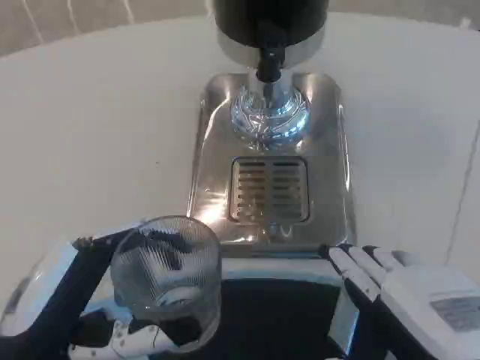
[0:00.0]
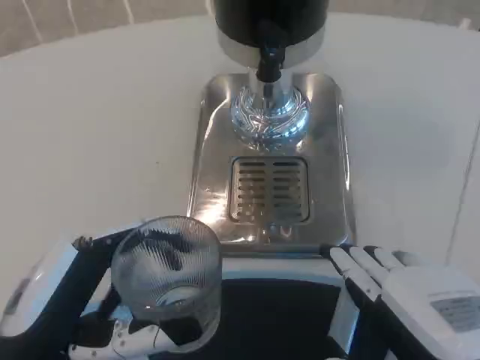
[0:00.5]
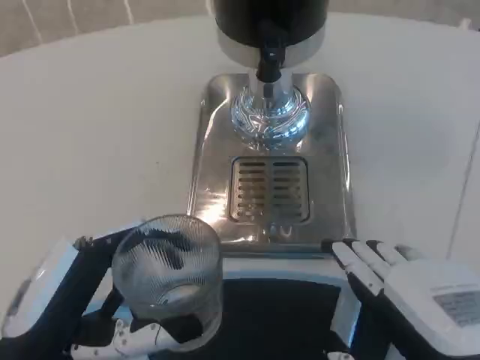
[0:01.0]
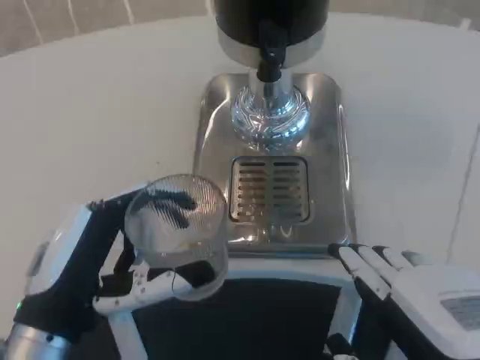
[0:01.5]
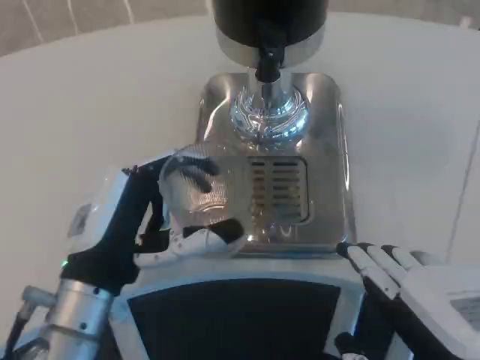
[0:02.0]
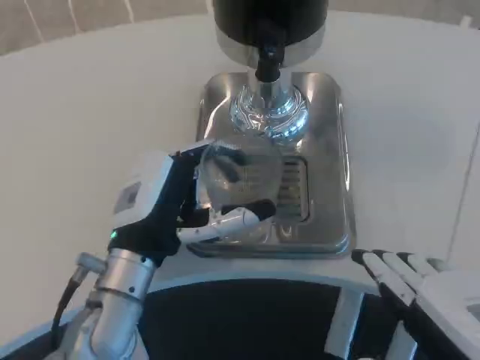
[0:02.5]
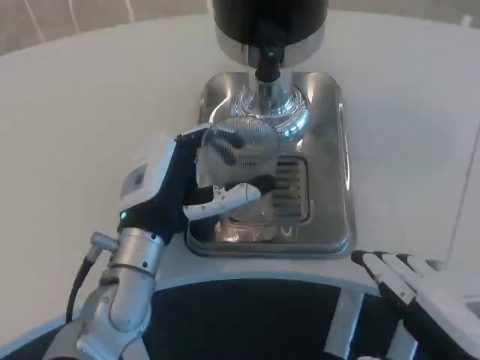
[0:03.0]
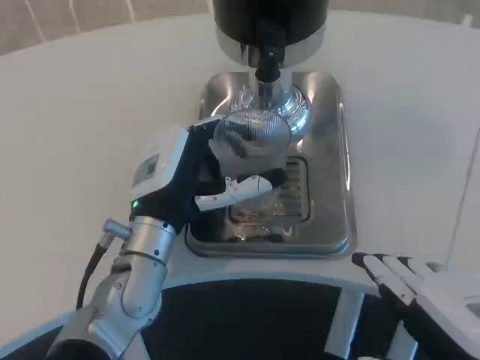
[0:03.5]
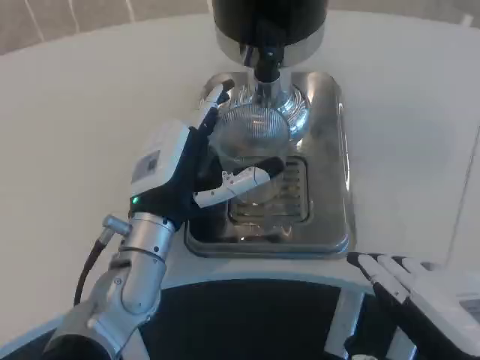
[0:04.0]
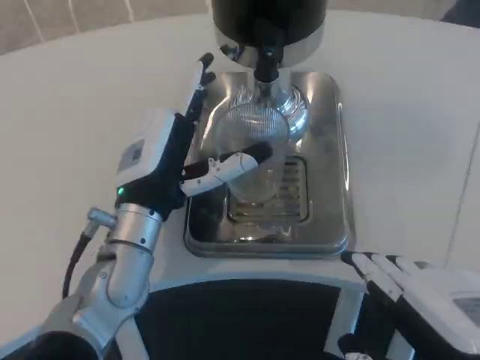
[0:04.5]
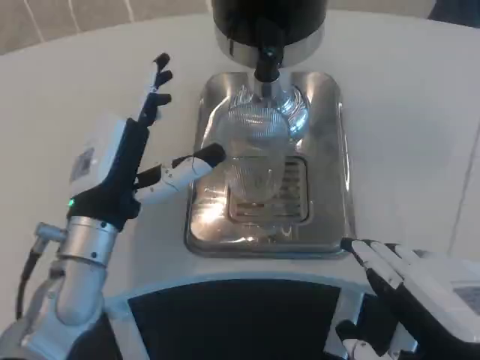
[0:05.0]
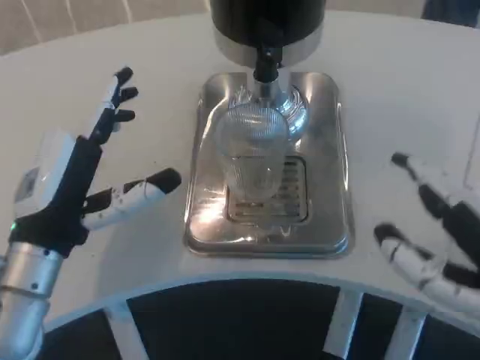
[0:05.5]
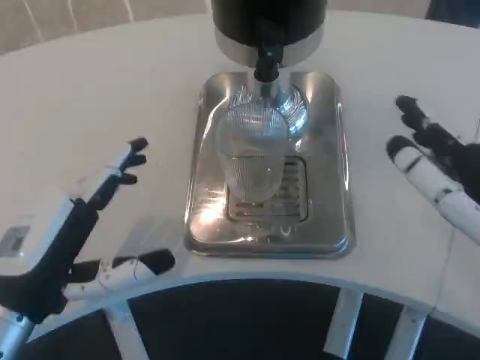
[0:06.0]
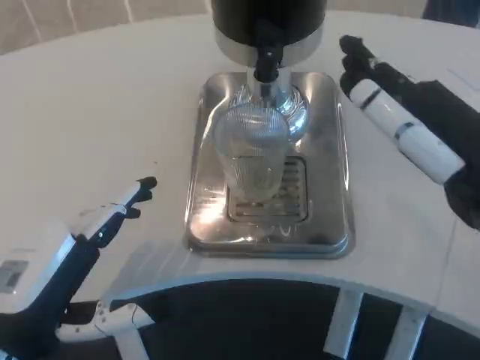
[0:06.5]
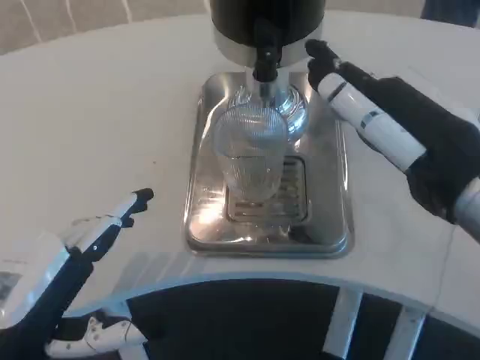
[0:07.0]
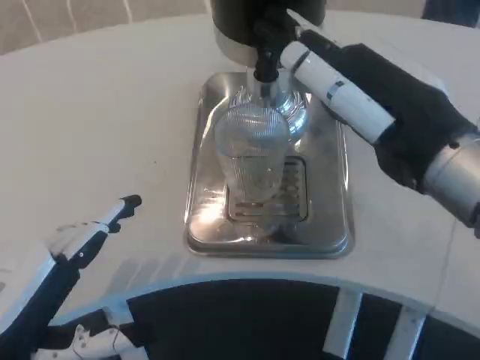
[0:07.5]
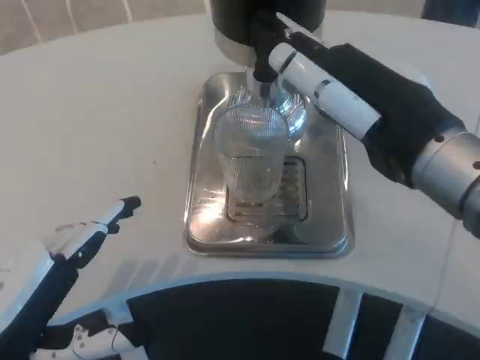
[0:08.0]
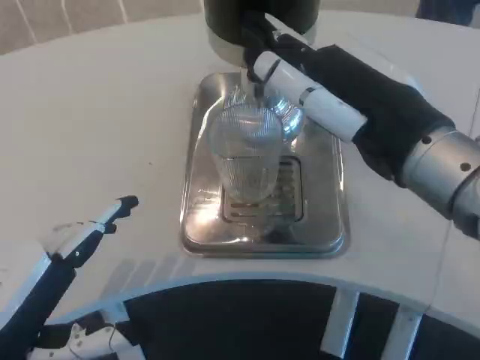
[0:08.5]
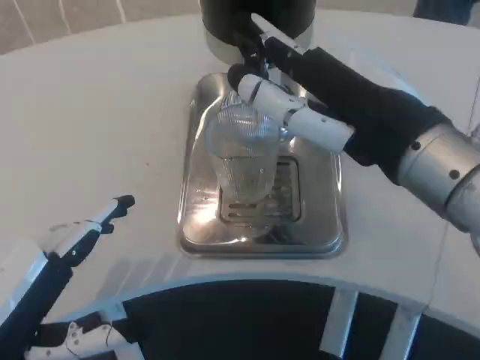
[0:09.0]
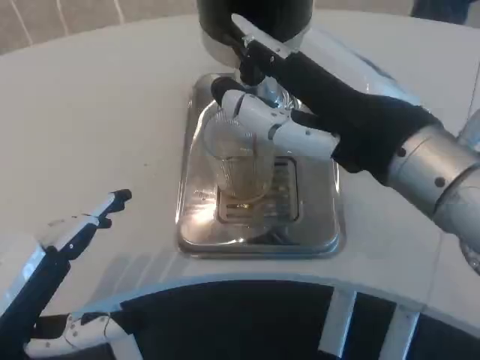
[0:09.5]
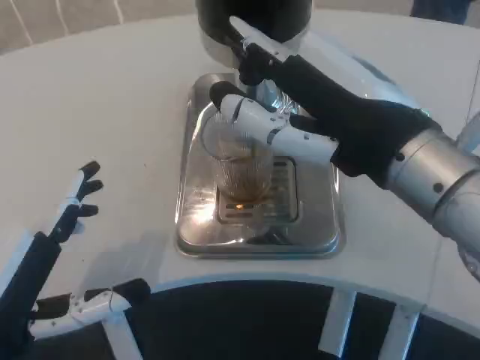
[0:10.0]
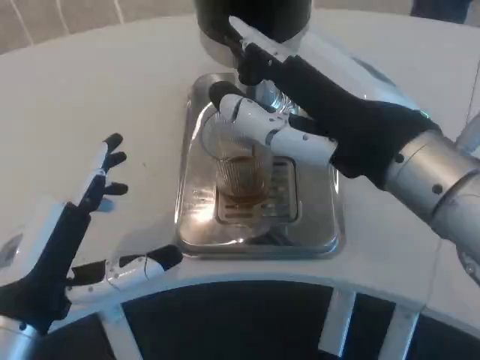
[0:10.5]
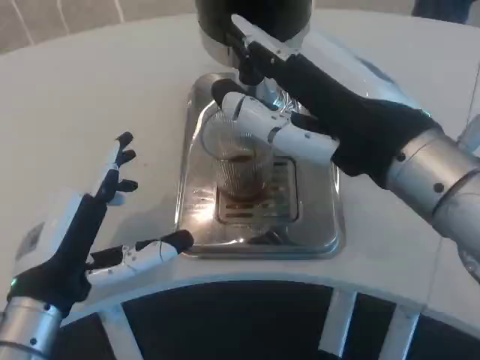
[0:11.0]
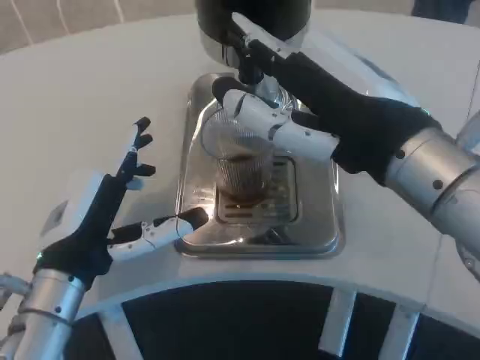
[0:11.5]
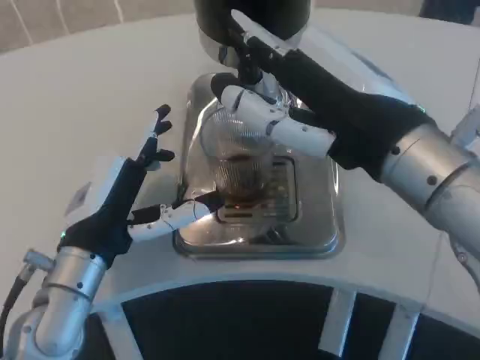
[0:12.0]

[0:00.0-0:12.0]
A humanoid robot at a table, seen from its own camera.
Task of the whole recording: Grasp the cup under the faucet to collect the drink, then remove the cup.
0:00.0 to 0:02.0: The left hand shifts approximately 10 cm forward.
0:02.0 to 0:04.0: The left hand shifts some 10 cm forward.
0:04.0 to 0:06.0: The right hand shifts approximately 5 cm forward. Meanwhile the left hand travels to the left and backward by roughly 15 cm.
0:06.0 to 0:08.0: The right hand travels forward and to the left by roughly 10 cm. Meanwhile the left hand shifts roughly 5 cm backward.
0:10.0 to 0:12.0: The left hand heads forward and to the right, covering some 10 cm.

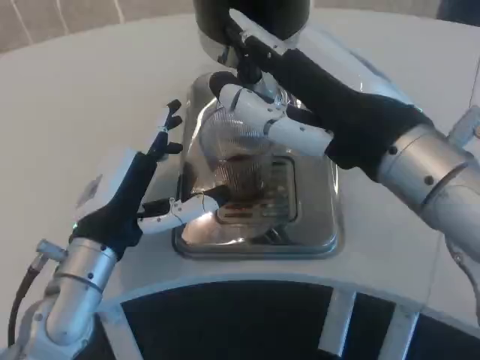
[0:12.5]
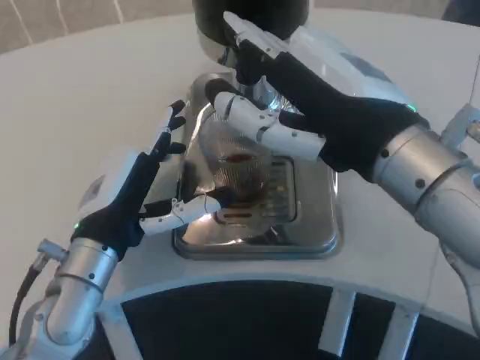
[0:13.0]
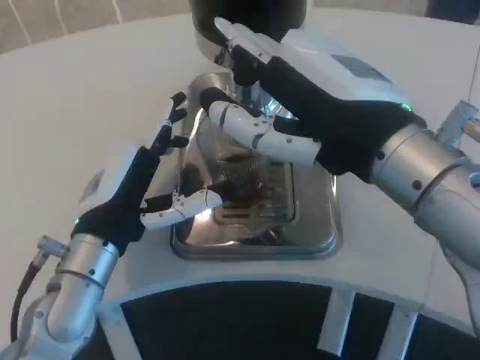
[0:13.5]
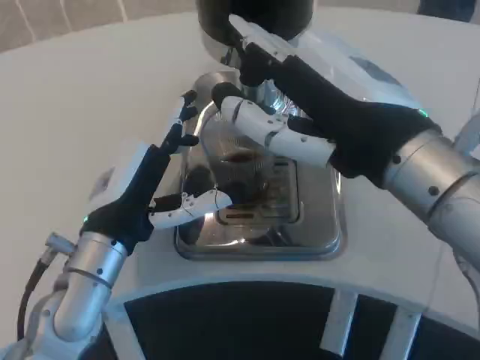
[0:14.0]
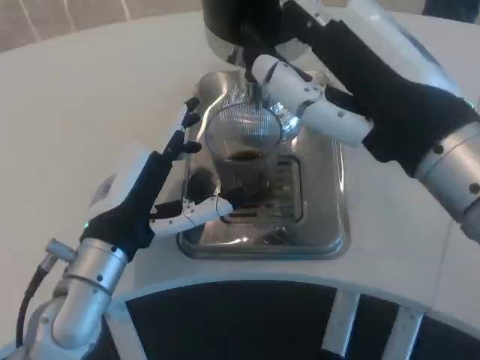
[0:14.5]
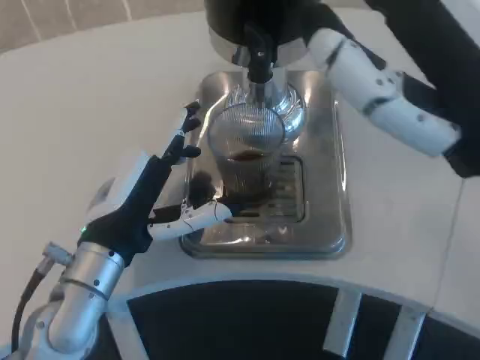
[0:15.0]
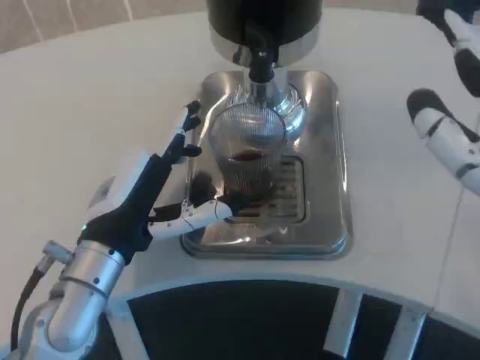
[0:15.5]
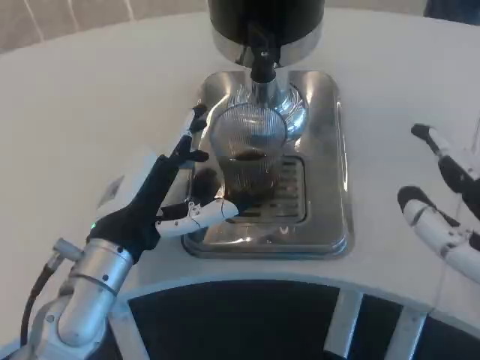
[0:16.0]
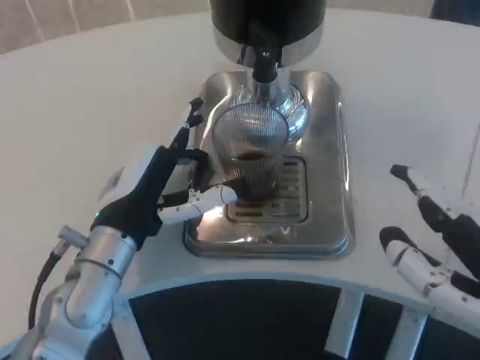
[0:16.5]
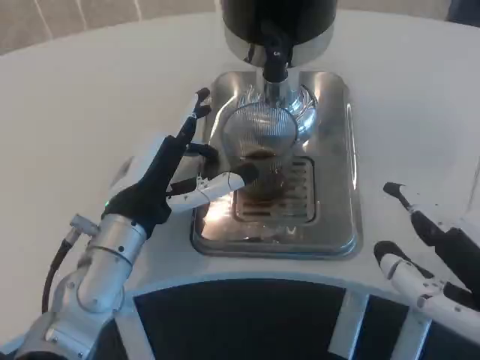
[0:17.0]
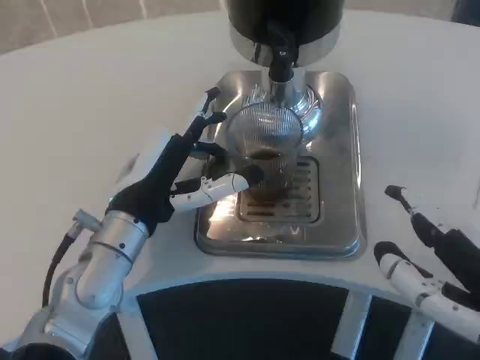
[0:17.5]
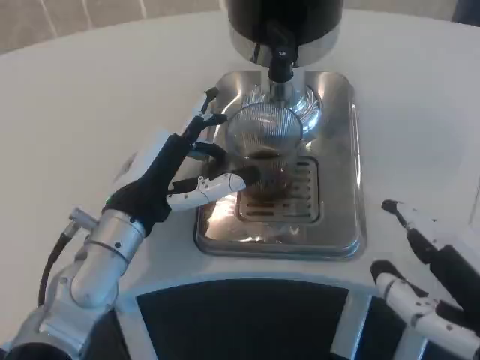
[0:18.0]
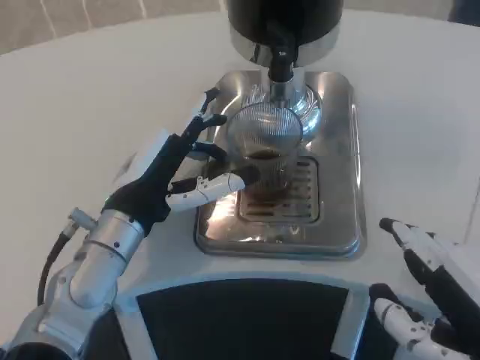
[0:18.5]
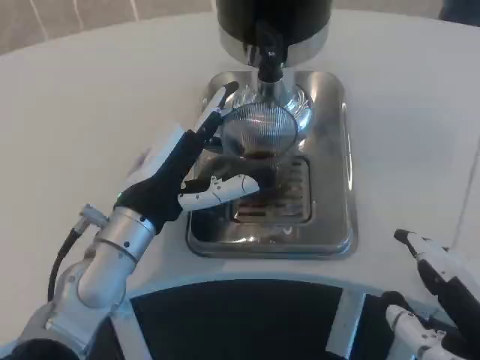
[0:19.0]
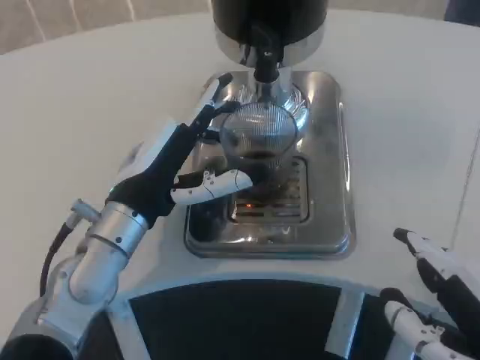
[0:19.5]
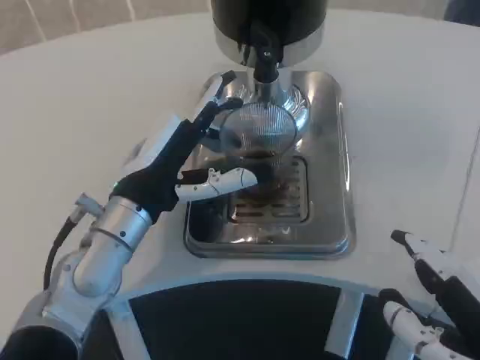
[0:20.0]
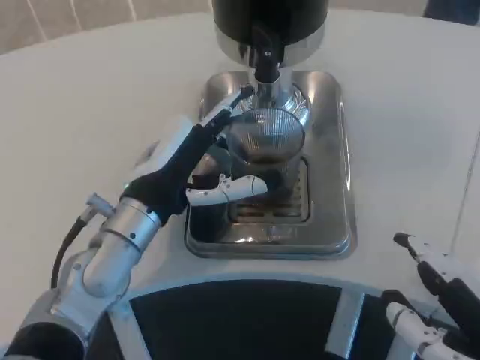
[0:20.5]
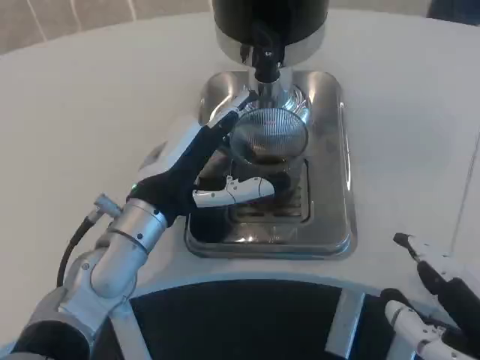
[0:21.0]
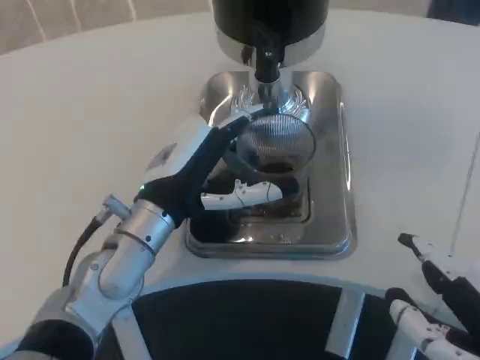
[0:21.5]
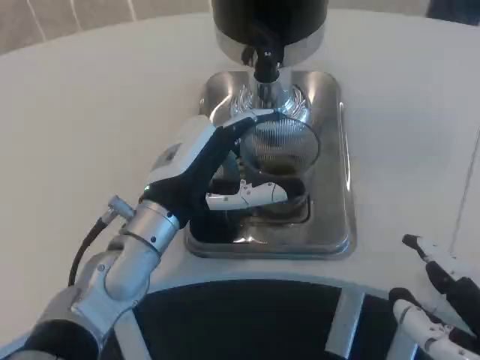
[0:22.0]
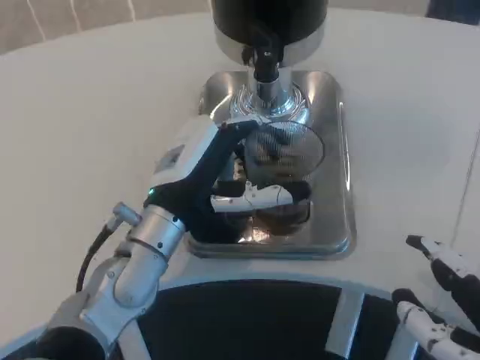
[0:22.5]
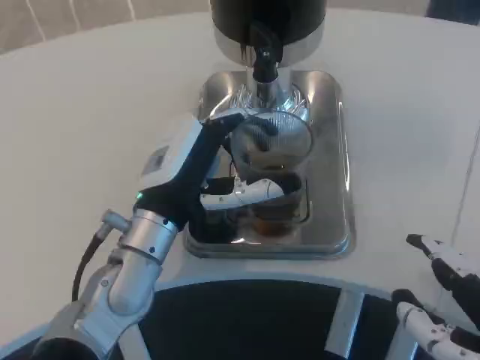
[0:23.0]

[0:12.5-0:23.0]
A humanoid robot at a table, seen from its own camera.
Task of the whole recording: Grasp the cup under the faucet to collect the drink, then remove the cup.
0:14.5 to 0:16.5: The right hand heads backward, downward and to the right, covering about 10 cm.
0:16.5 to 0:23.0: The hands stay close to where they were, moving slightly.

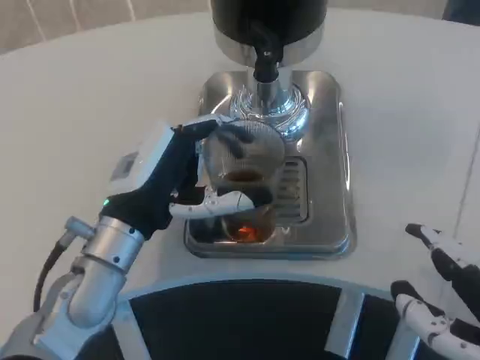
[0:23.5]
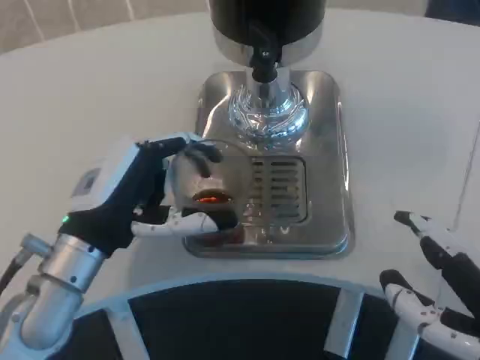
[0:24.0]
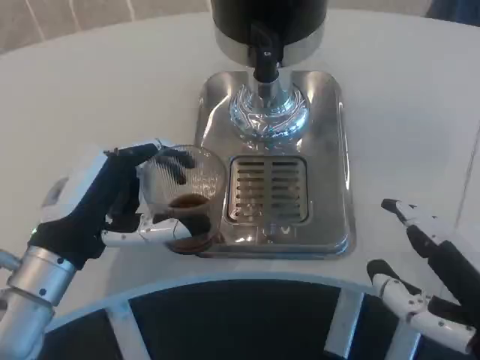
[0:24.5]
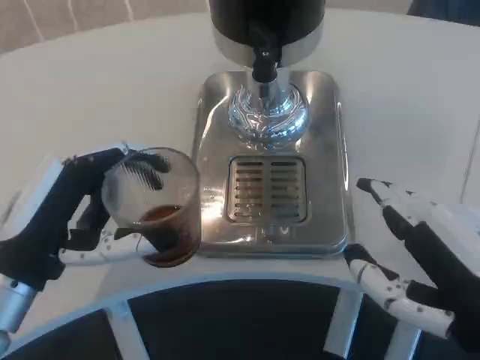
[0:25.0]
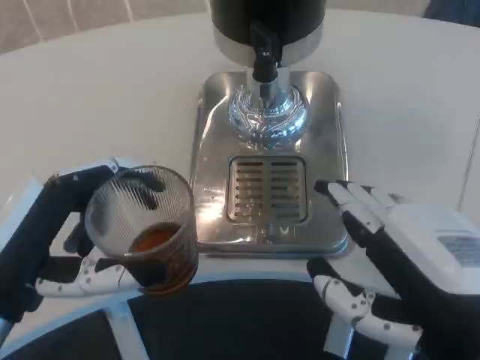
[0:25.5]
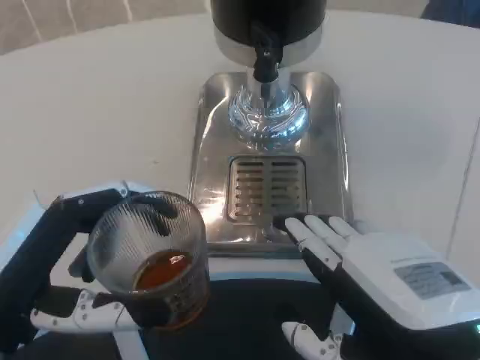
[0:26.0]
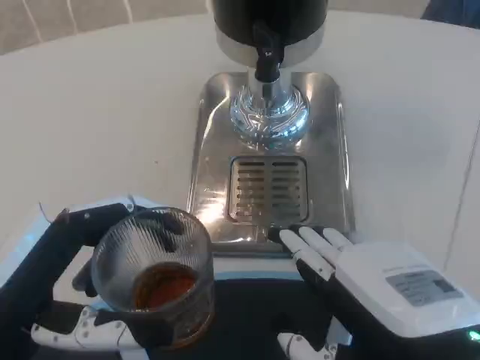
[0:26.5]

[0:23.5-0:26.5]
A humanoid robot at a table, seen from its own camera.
Task of the whole recording: Grasp the cup under the faucet to collect the drink, then remove the cup.
0:23.5 to 0:25.0: The left hand heads to the left and backward, covering some 10 cm.
0:25.0 to 0:26.5: The left hand is displaced backward by approximately 5 cm.
